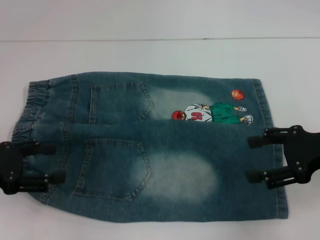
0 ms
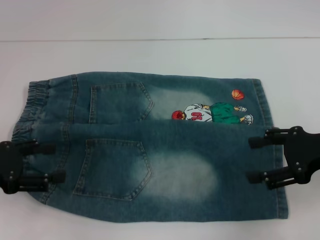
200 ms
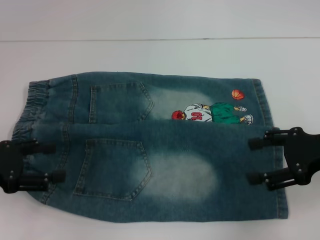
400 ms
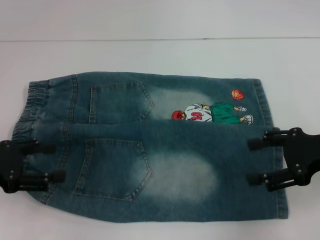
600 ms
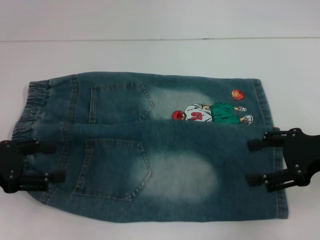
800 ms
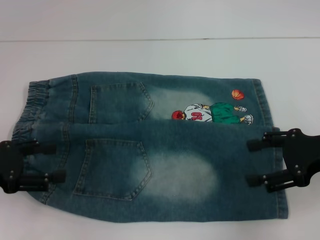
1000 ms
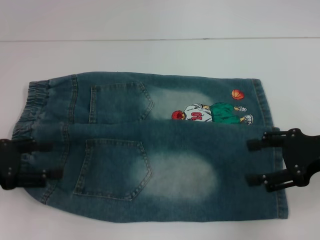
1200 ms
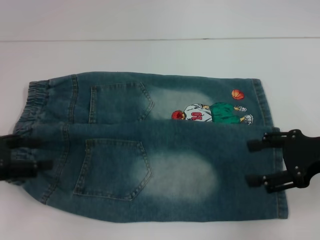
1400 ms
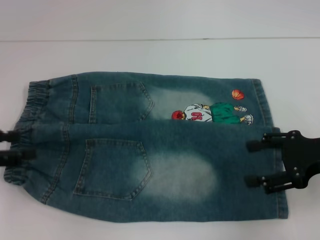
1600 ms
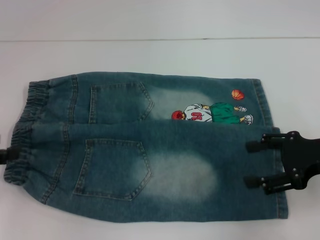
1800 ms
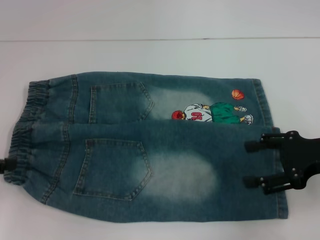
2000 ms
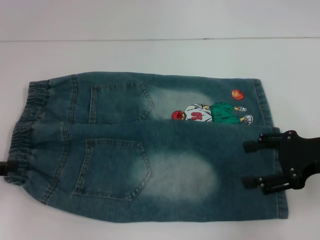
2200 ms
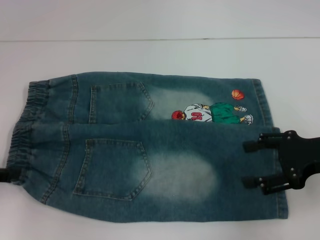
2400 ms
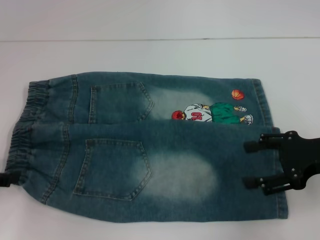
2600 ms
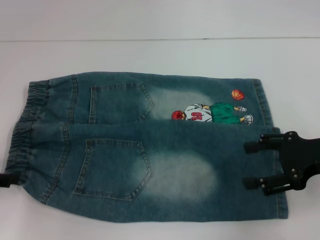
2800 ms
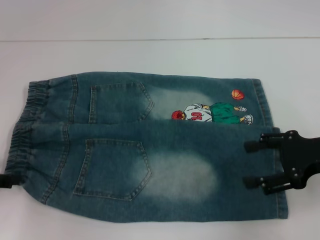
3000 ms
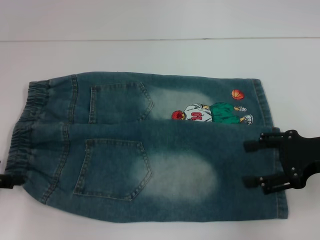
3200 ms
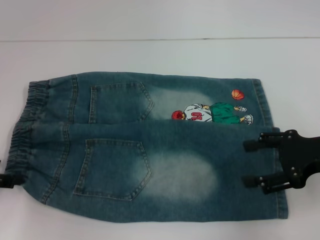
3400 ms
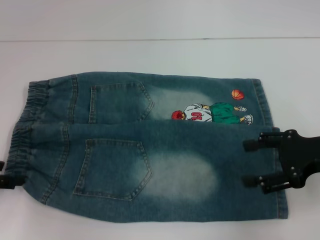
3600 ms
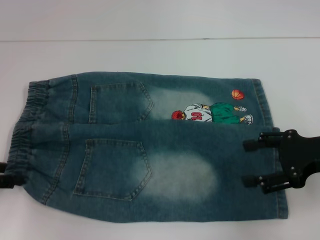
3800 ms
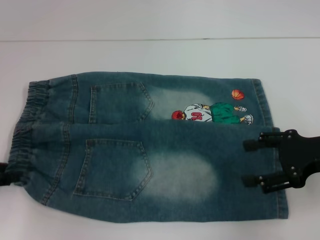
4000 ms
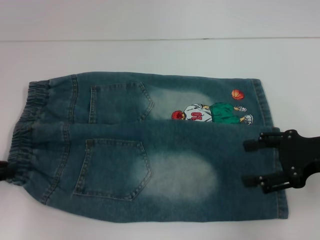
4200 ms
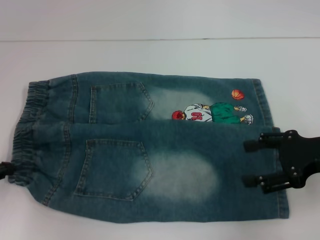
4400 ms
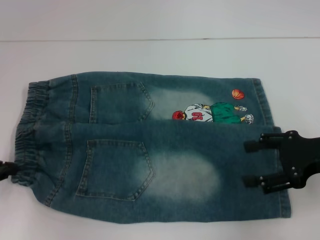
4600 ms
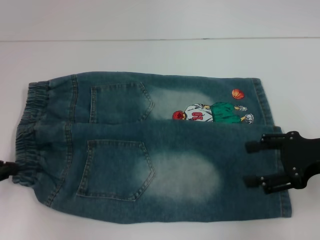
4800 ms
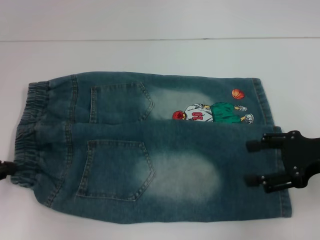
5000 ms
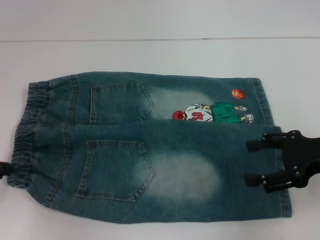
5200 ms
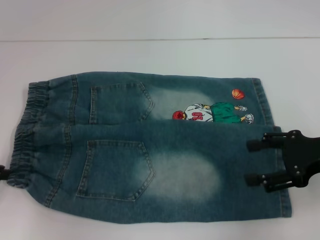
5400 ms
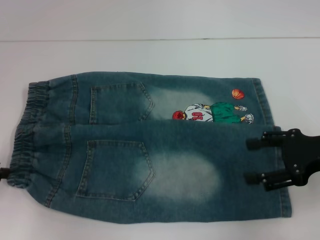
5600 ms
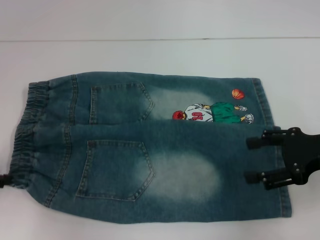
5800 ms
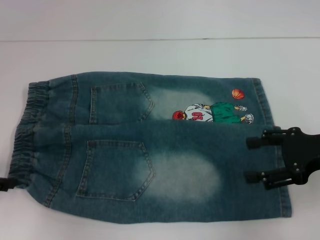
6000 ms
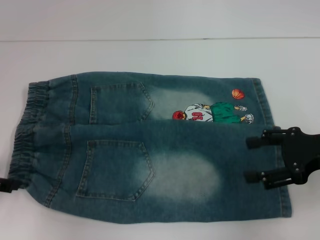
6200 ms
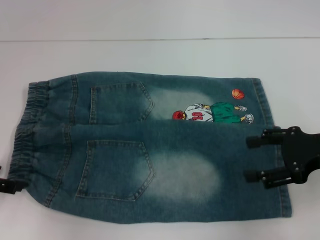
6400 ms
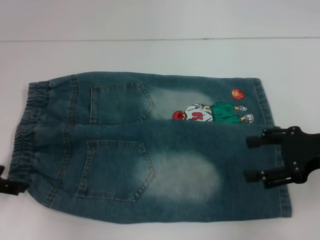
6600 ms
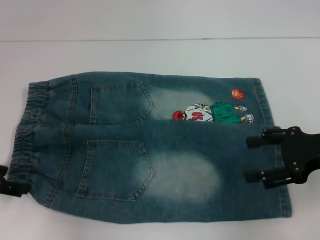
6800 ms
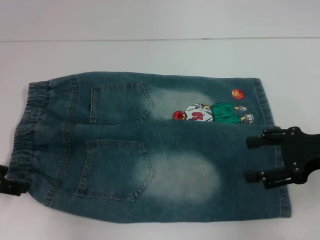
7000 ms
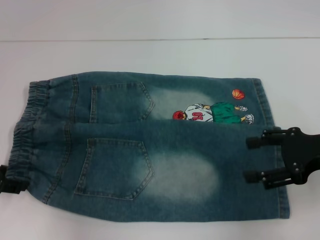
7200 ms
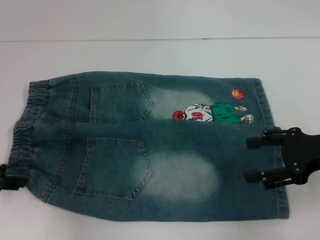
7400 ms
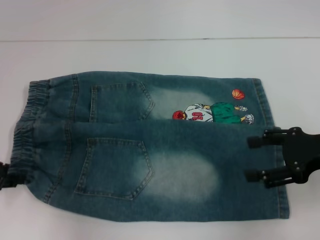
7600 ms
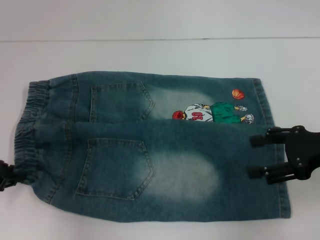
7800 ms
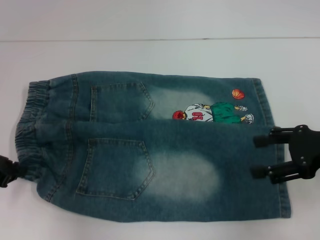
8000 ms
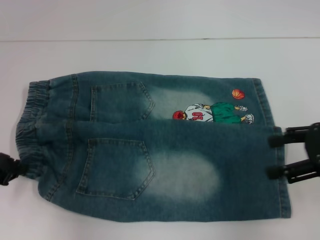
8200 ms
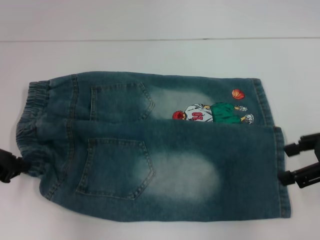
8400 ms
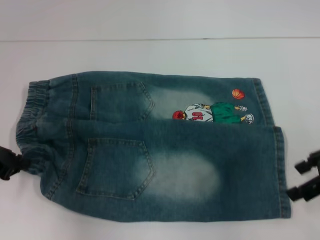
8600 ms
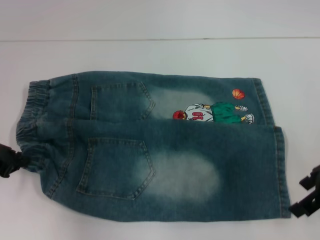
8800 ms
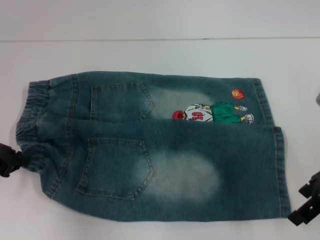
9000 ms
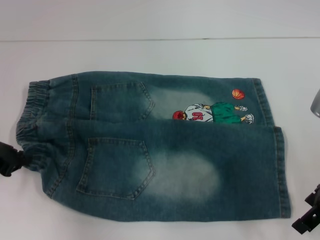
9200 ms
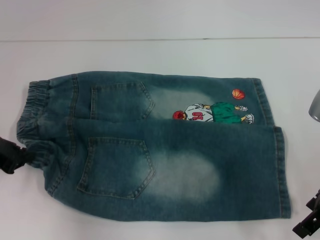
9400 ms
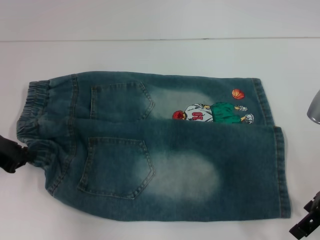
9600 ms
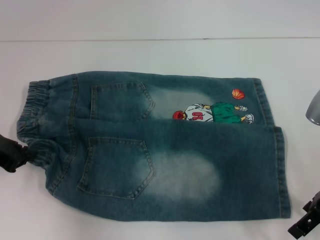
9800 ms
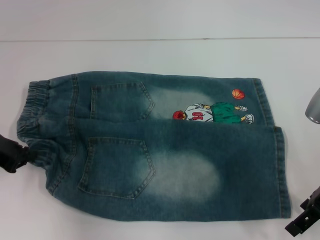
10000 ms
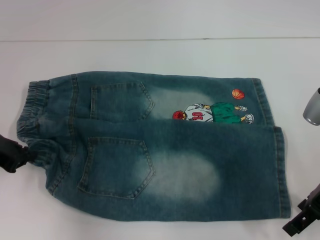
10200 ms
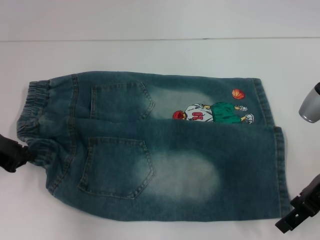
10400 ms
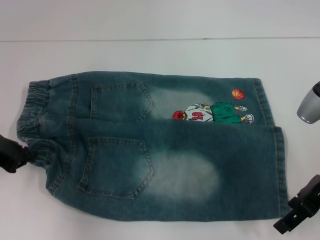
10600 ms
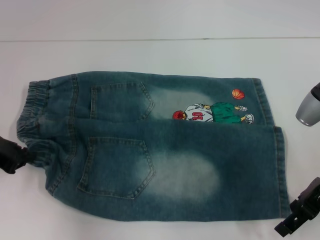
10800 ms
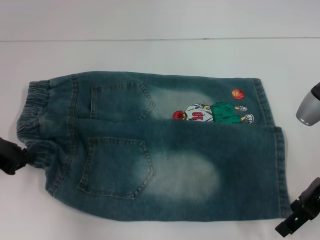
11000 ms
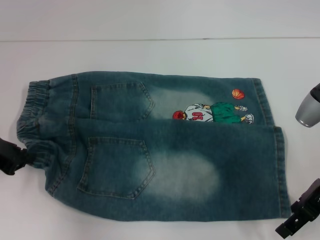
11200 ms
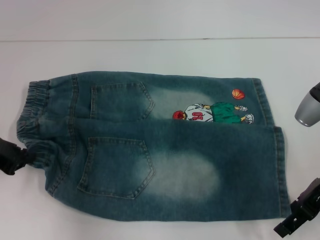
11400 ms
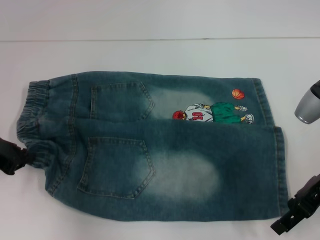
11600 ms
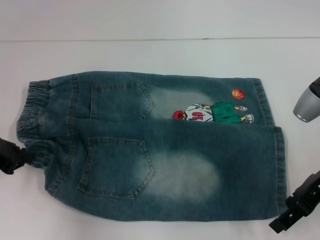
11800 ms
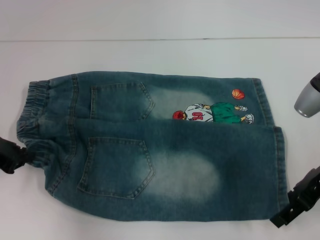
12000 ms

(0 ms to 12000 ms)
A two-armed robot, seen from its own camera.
Step, 0 ms - 8400 ms: Hold the lower left waistband with your left hand.
0 ms - 1600 ms: The grippers make only small movements.
3000 ms - 4400 ms: The left gripper closes up.
4400 ms - 6000 ms: The grippers move only a little.
6000 ms - 7600 ms: The left gripper opens, then closes again.
7600 ms - 9000 ms: The left gripper closes up.
9000 ms - 10400 ms: The grippers make only small movements.
10400 ms - 12000 ms: Both grippers stay about where they are.

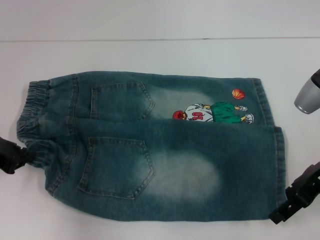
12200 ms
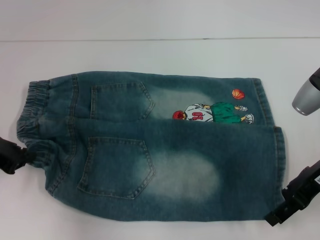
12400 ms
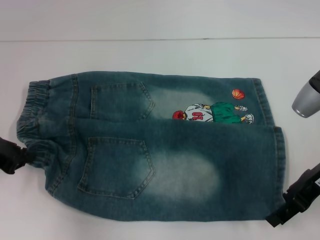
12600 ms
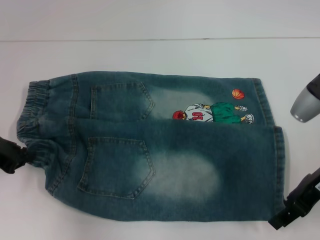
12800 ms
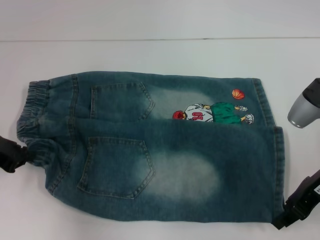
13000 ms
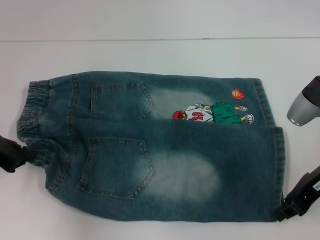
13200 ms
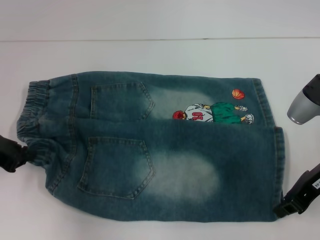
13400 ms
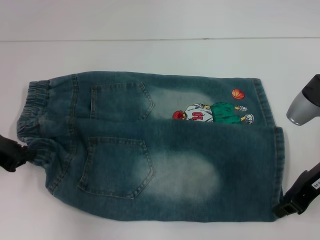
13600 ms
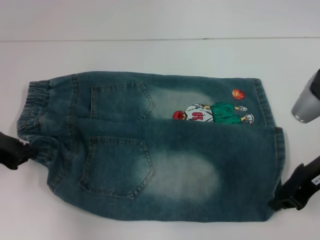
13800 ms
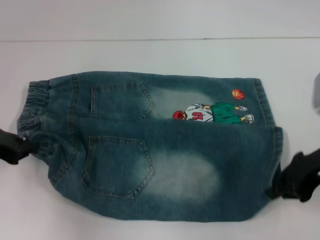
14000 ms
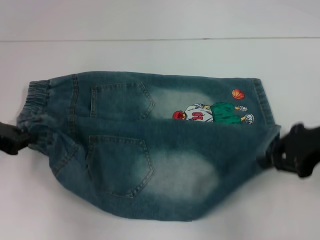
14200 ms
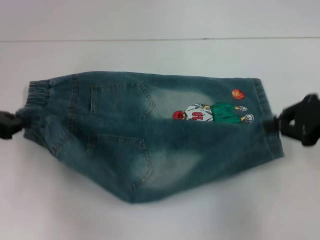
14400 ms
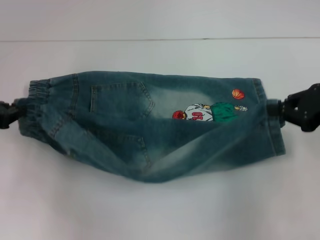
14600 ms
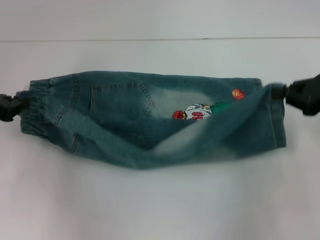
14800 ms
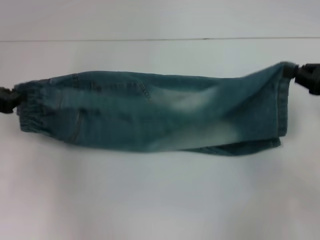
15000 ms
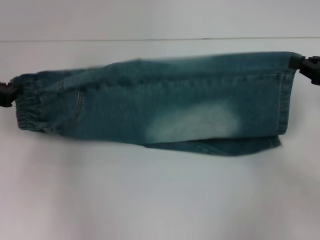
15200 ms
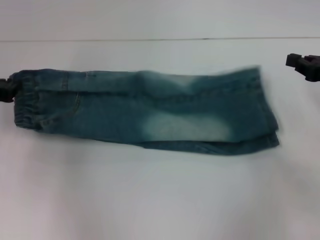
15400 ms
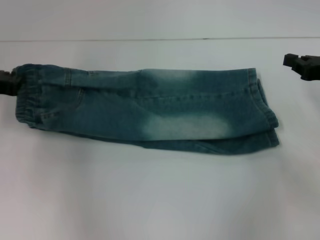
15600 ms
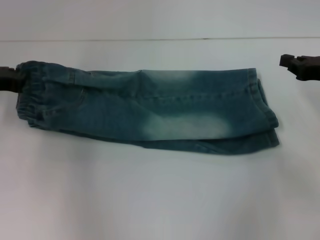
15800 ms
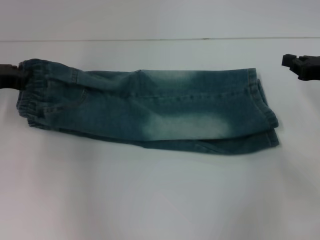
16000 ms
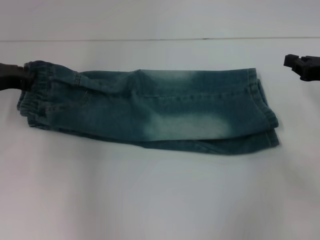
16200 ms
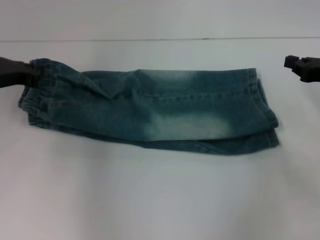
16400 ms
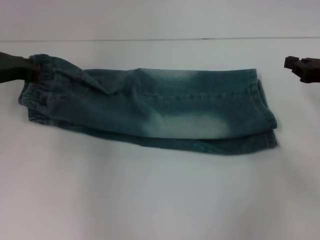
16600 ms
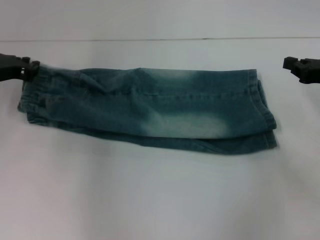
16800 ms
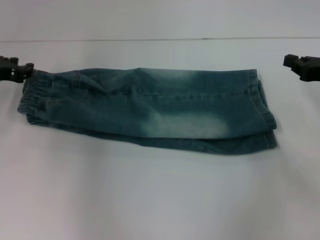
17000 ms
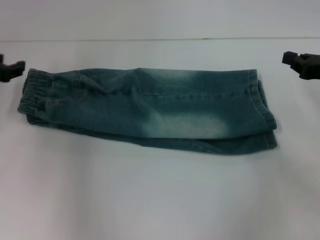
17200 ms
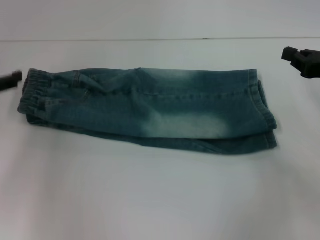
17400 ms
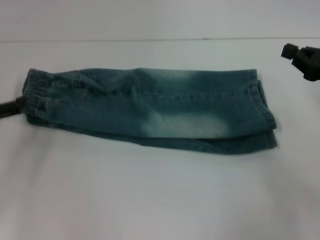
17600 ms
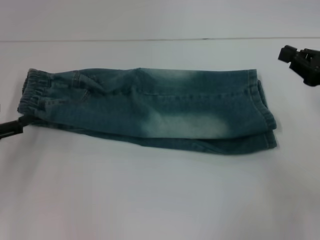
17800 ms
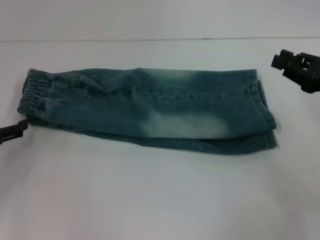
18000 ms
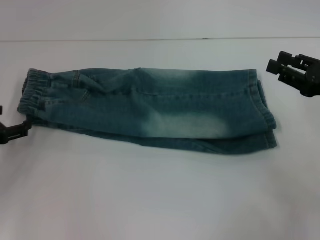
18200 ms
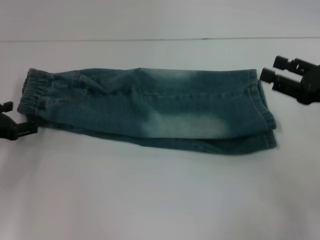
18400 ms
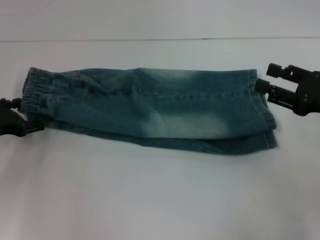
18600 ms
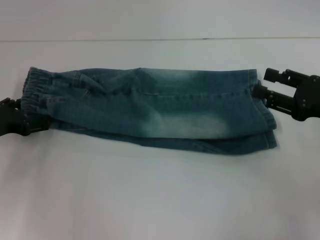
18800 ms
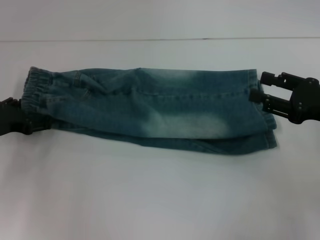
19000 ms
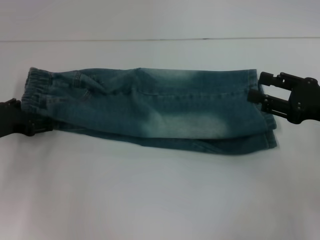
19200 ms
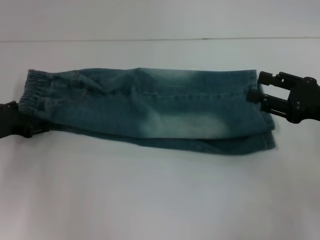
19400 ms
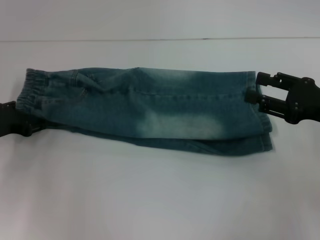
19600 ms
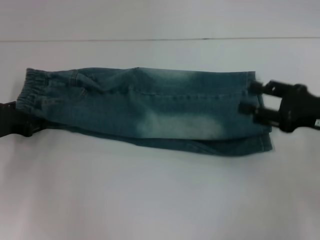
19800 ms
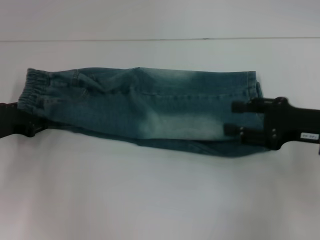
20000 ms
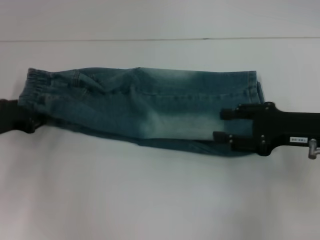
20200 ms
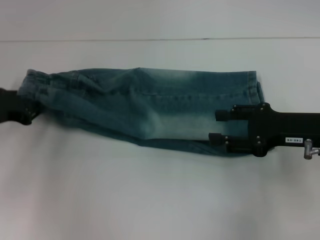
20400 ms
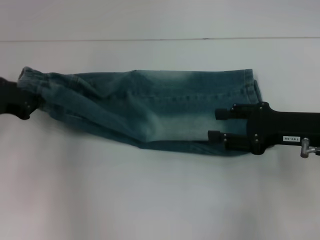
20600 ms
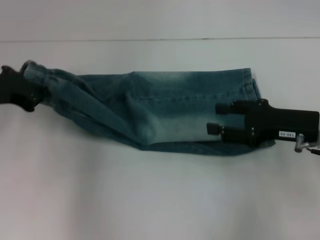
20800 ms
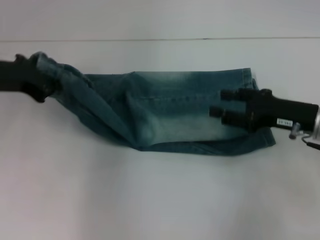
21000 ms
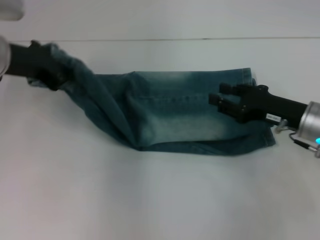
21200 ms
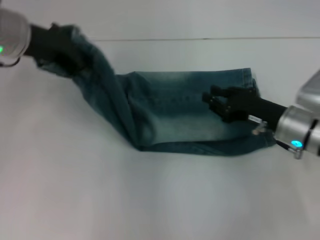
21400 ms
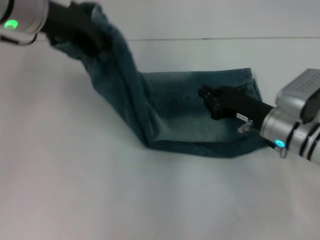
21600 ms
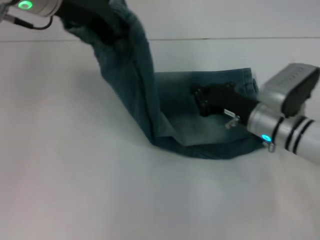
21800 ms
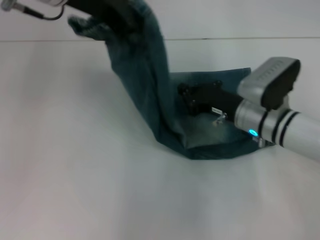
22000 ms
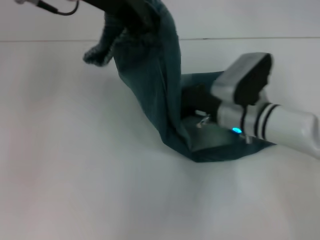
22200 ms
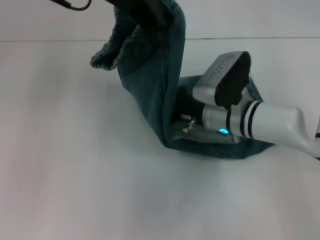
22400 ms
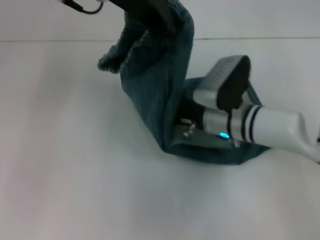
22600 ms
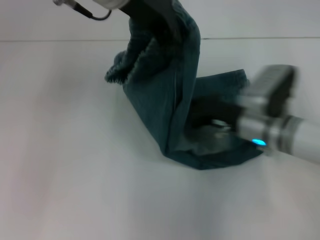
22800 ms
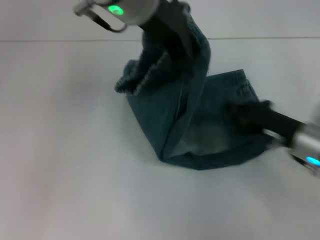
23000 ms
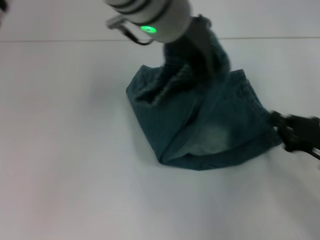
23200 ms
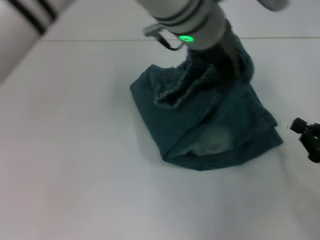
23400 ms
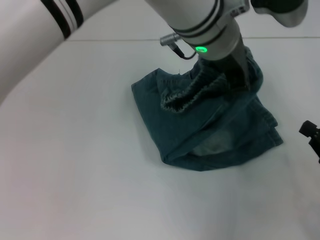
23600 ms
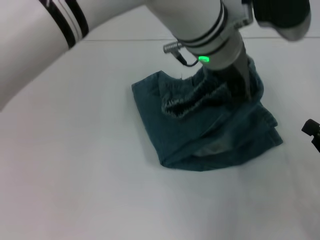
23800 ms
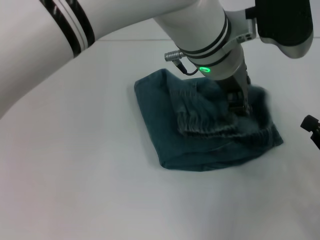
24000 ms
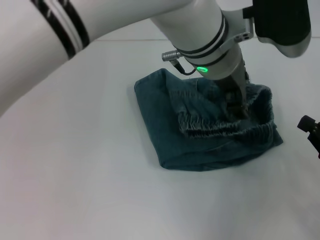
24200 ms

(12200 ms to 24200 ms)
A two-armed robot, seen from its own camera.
Step, 13600 ms - 16800 ms: Fold upward with your right hand.
Step, 17000 ms - 19800 ms: Hold the waistband with your left hand.
Step, 20000 ms - 22400 ms: Press the middle of the pants with your right hand.
12200 ms - 13800 ms: The right gripper closes its fingers.
13800 ms - 15200 ms: The right gripper travels to the right by some 10 cm.
15200 ms - 16600 ms: The left gripper goes approximately 5 cm forward.
16600 ms - 18200 ms: The right gripper opens its fingers; the left gripper moves backward, to the left and downward, approximately 15 cm, and opens.
18200 ms - 19800 ms: The left gripper changes place by some 5 cm.
19800 ms - 21200 ms: The right gripper ends up approximately 5 cm from where it was; the left gripper heads upward and to the right, covering approximately 15 cm, and closes its fingers.
21200 ms - 22600 ms: The left gripper travels to the right and upward by about 20 cm; the right gripper heads to the left, covering roughly 15 cm, and closes up.
22600 ms - 24200 ms: The right gripper heads to the right and backward, covering approximately 25 cm; the left gripper is displaced to the right and downward by some 15 cm, and opens its fingers.
